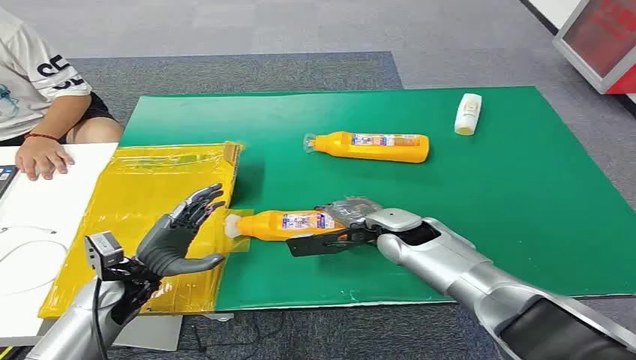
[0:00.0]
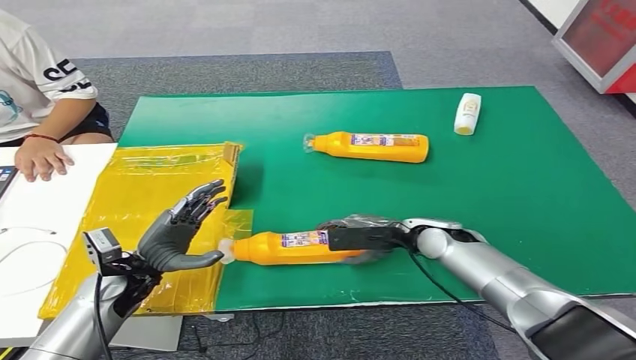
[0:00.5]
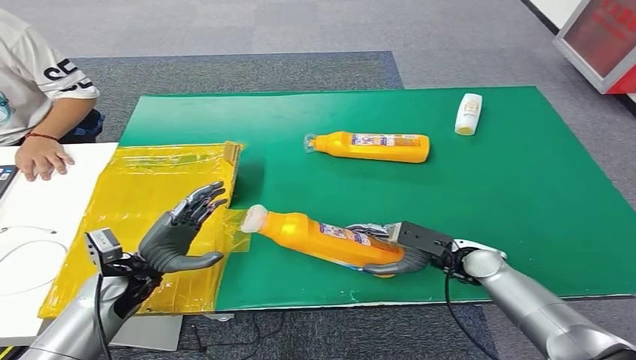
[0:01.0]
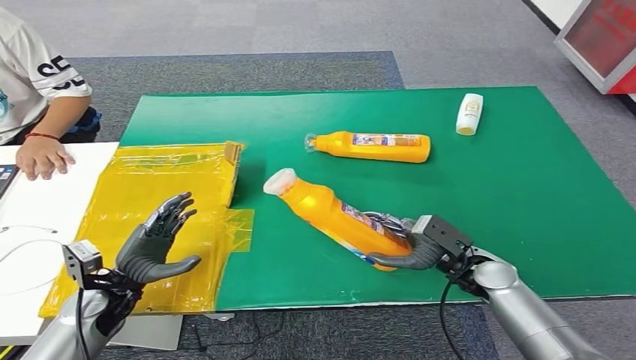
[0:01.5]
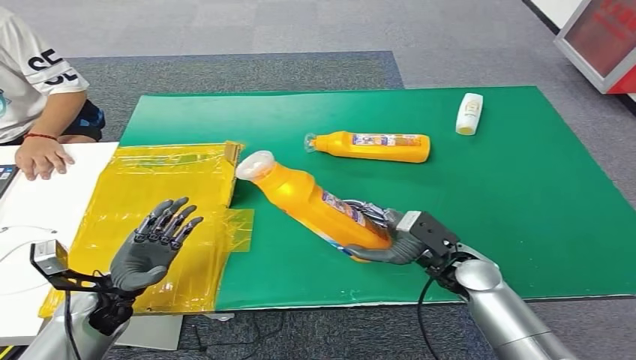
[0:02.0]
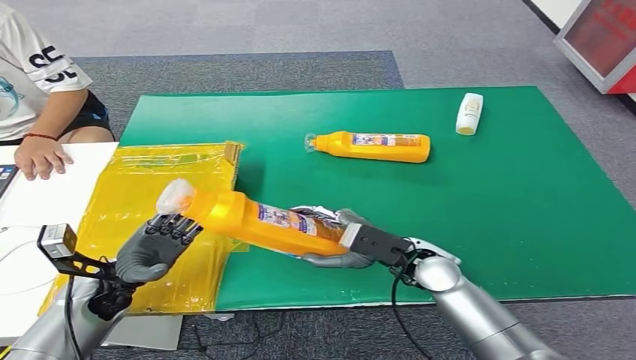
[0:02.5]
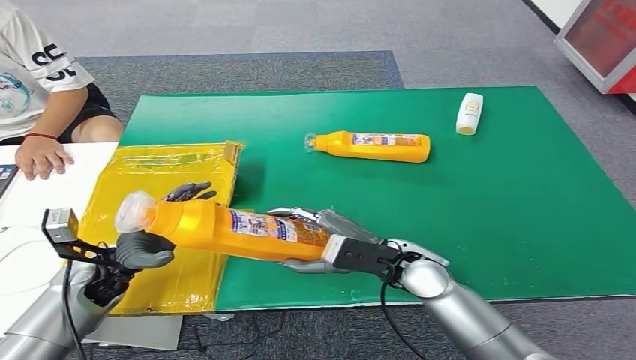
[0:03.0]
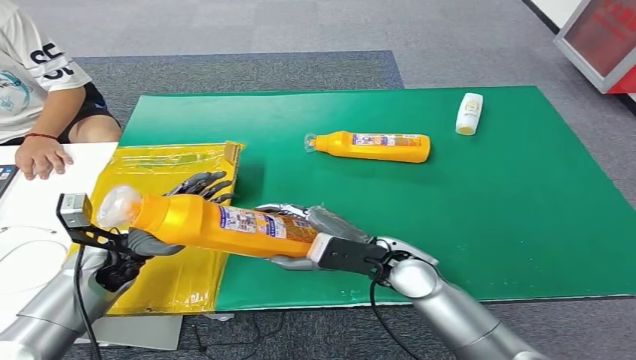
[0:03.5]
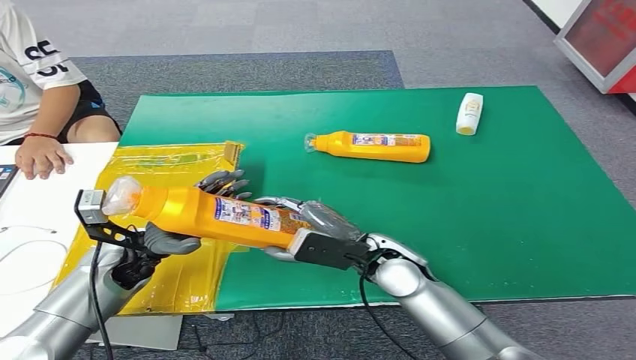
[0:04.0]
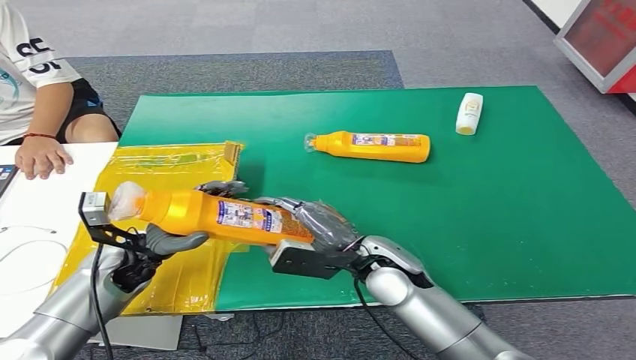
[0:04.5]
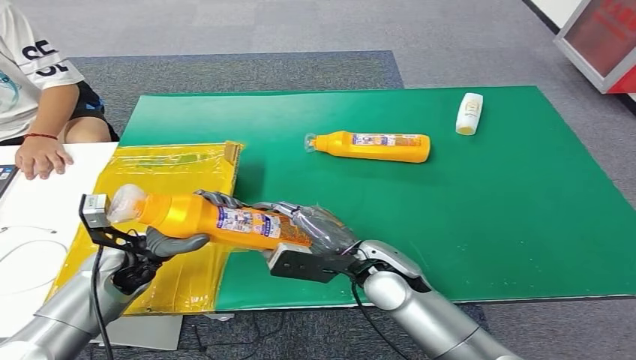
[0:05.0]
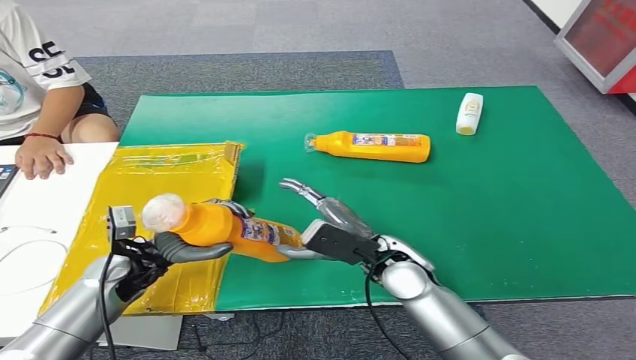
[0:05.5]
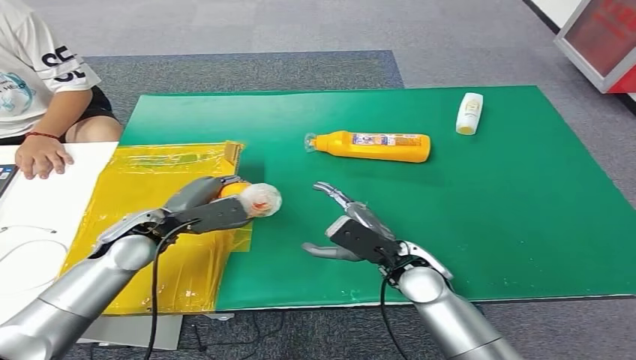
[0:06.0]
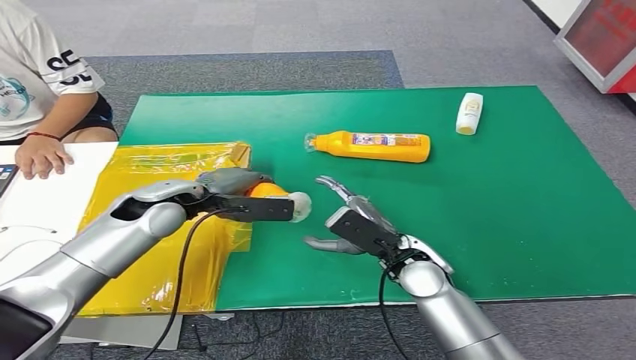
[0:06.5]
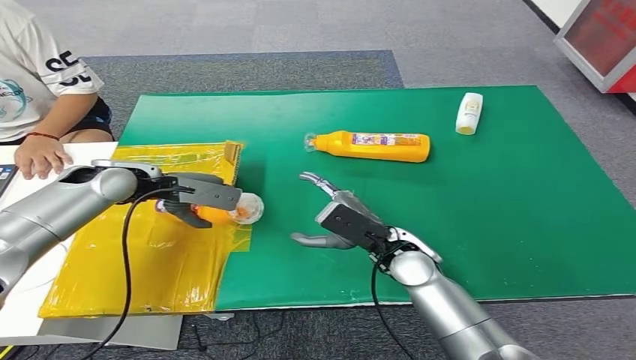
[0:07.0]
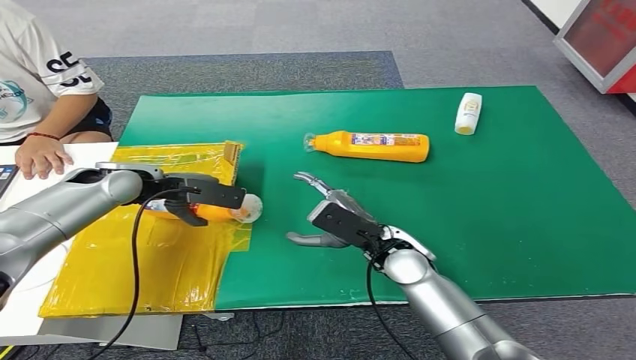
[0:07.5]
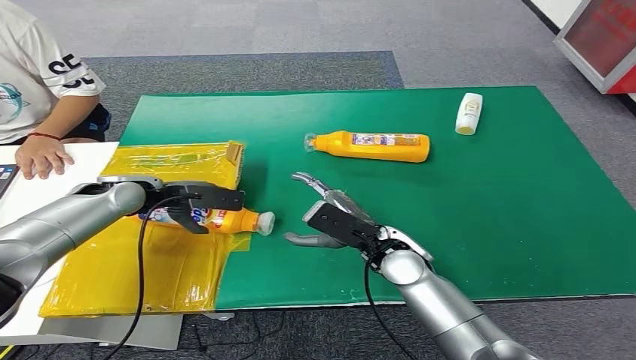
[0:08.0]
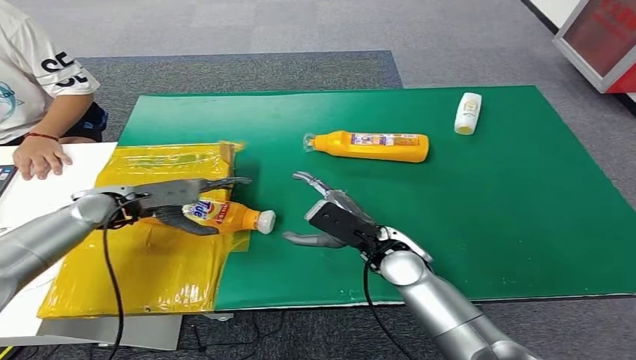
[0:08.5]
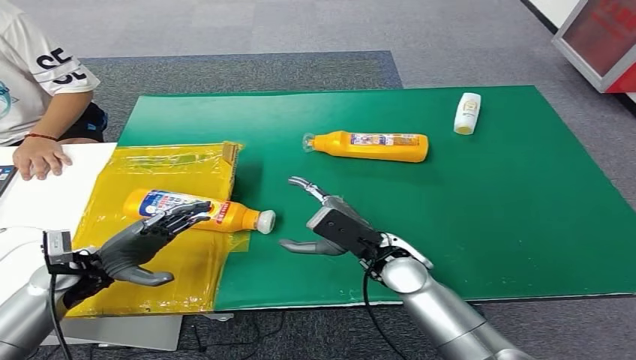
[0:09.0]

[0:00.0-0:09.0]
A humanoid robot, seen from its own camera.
Step, 0:00.0 to 0:02.5: Pick up the bottle from the table.
Step, 0:03.0 to 0:09.0: Turn the bottle to the front side.
